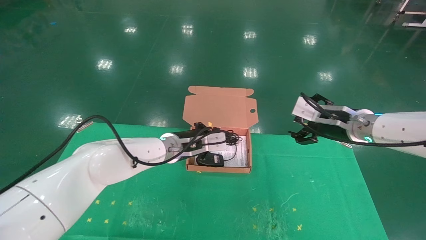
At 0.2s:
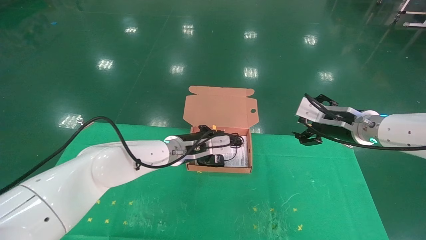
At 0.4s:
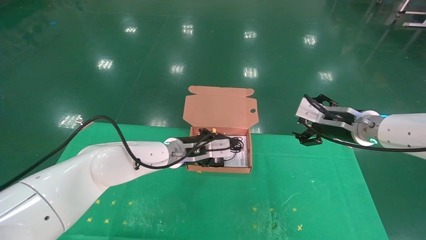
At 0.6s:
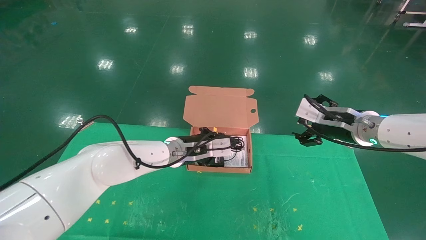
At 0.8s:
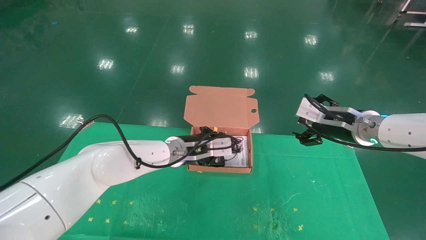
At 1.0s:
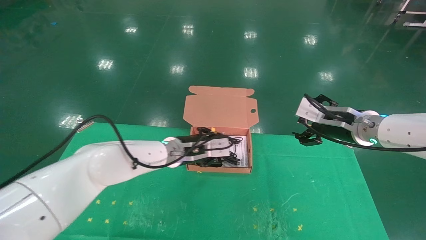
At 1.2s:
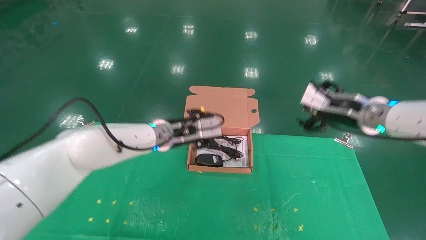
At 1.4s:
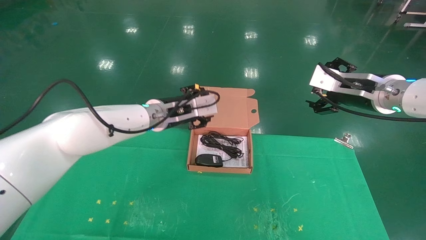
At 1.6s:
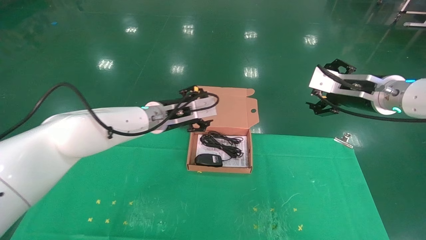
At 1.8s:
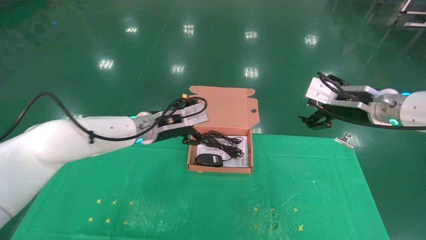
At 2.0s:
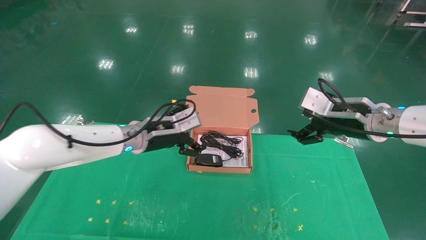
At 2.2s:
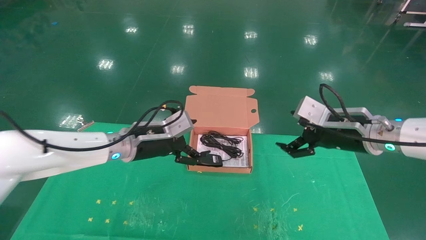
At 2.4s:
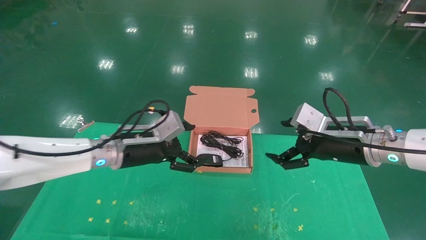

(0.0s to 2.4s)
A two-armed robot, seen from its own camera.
Task of the whole recording: grasp data cable left put into box grasp mouse right put into box.
0.0s - 1.2s: Both grippers travel together upward, about 5 cm. The left gripper opens.
1.2s - 2.4s: The right gripper moves downward and backward, some 10 cm. The left gripper goes roughly 10 cm backward and to the left, and opens.

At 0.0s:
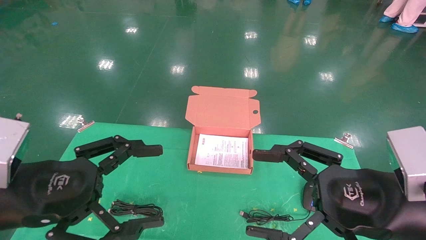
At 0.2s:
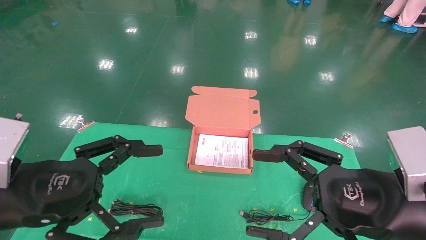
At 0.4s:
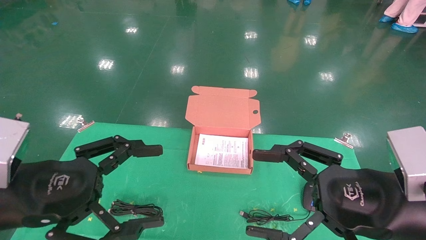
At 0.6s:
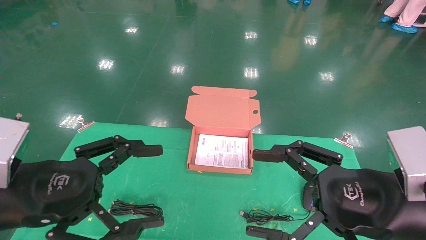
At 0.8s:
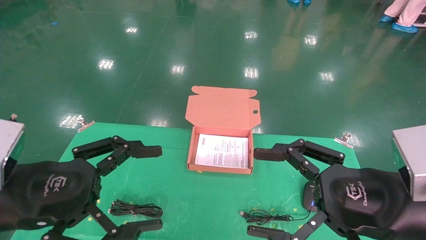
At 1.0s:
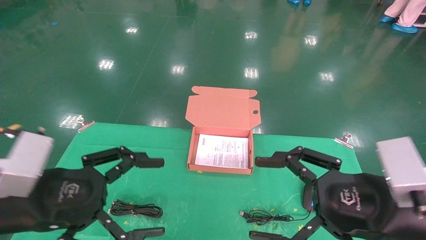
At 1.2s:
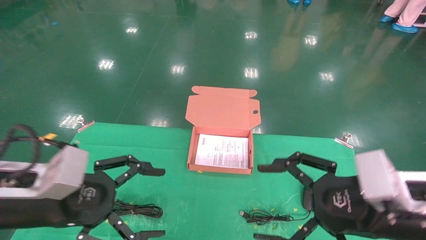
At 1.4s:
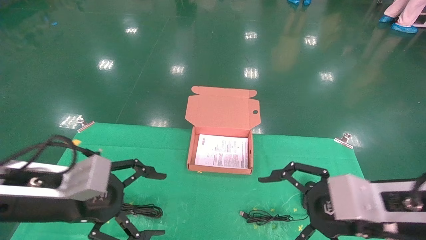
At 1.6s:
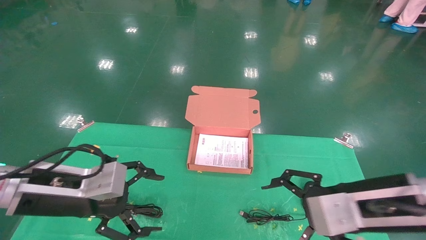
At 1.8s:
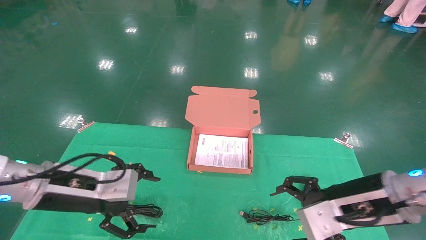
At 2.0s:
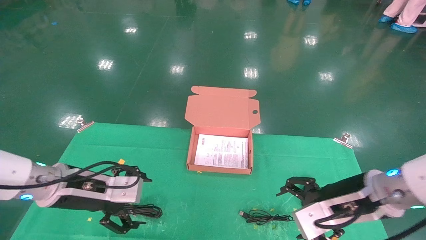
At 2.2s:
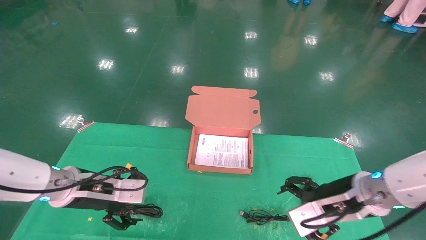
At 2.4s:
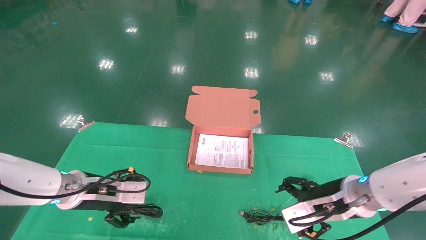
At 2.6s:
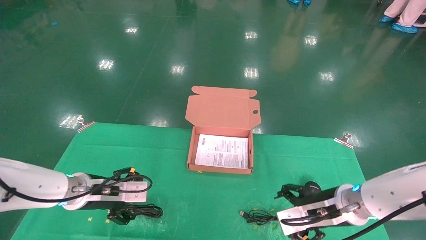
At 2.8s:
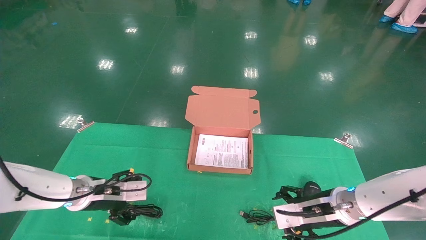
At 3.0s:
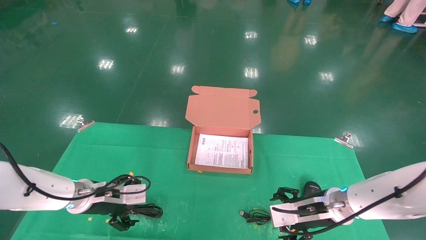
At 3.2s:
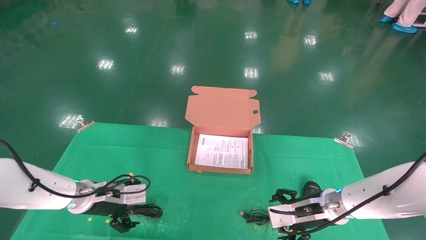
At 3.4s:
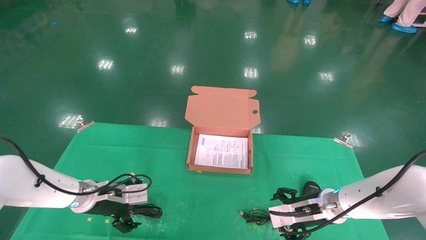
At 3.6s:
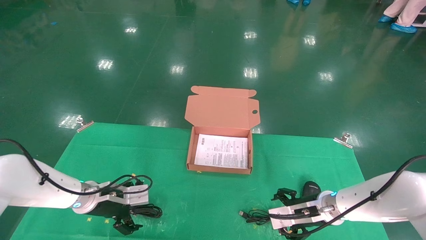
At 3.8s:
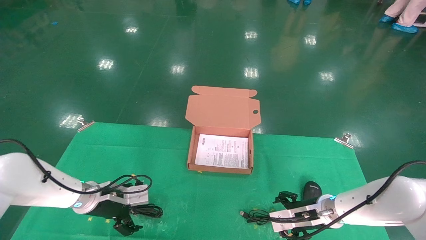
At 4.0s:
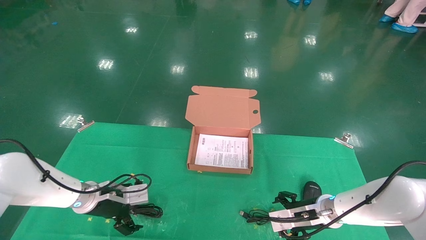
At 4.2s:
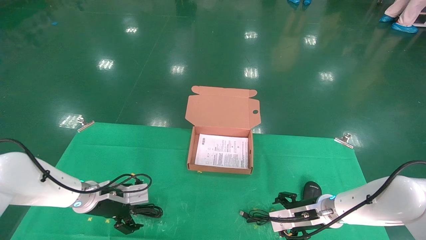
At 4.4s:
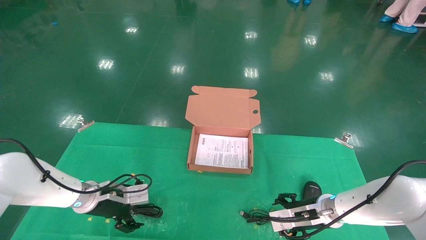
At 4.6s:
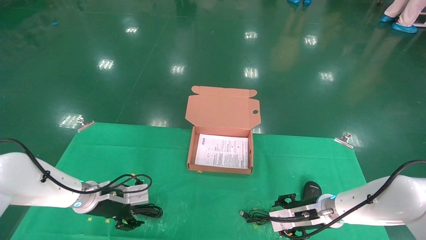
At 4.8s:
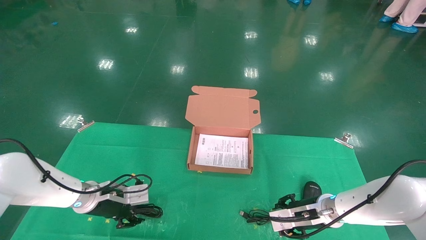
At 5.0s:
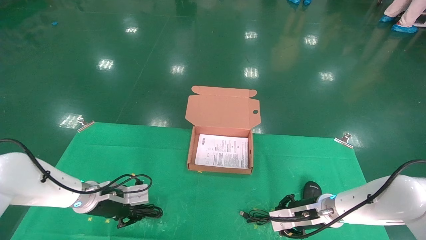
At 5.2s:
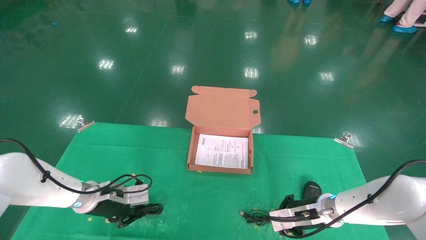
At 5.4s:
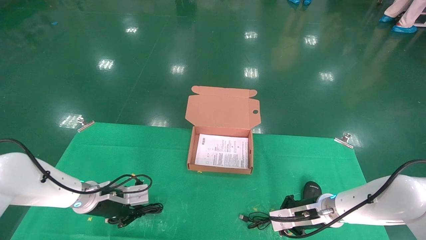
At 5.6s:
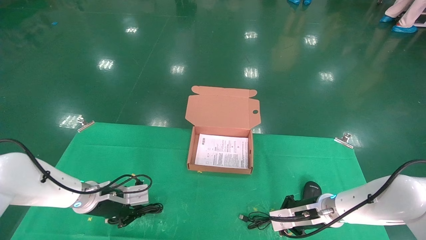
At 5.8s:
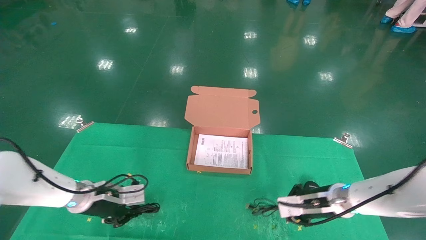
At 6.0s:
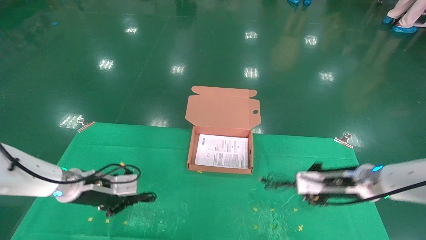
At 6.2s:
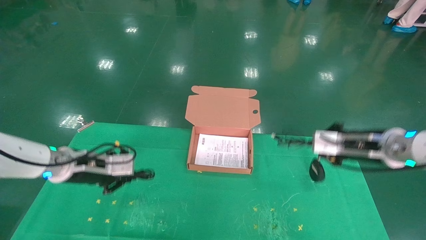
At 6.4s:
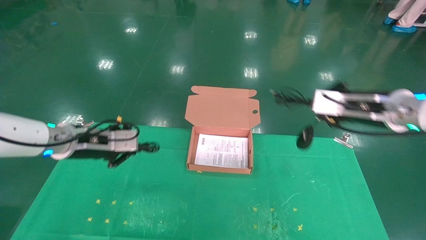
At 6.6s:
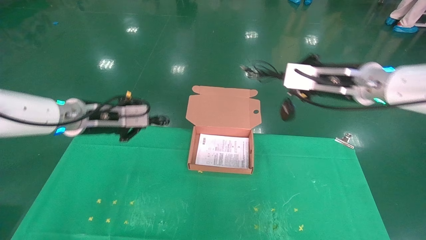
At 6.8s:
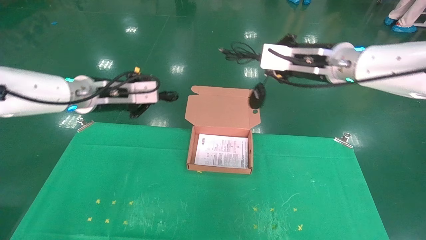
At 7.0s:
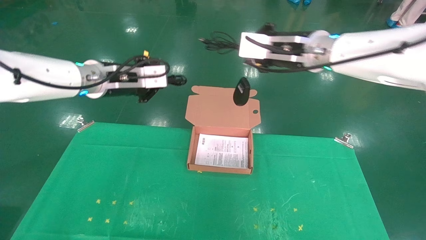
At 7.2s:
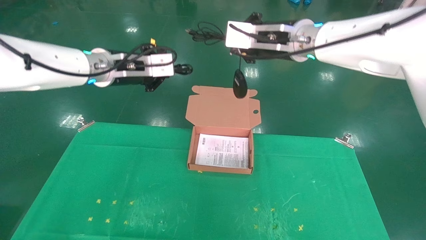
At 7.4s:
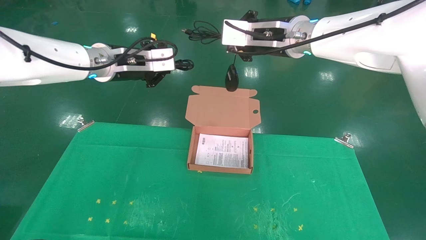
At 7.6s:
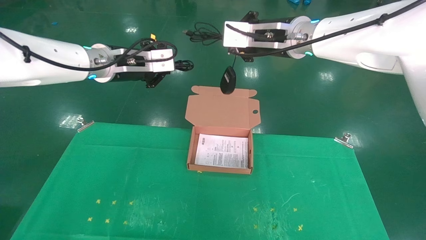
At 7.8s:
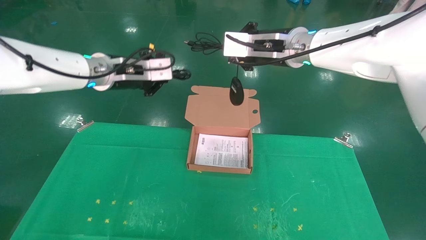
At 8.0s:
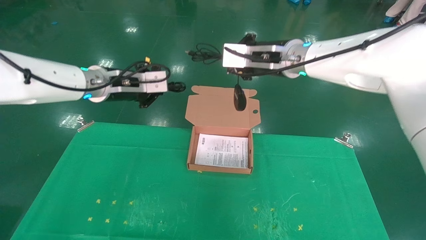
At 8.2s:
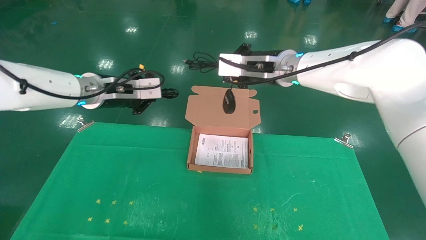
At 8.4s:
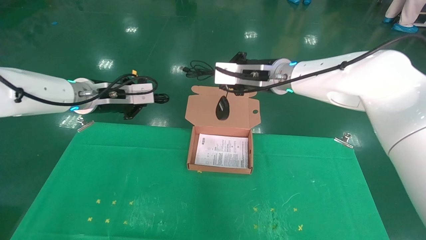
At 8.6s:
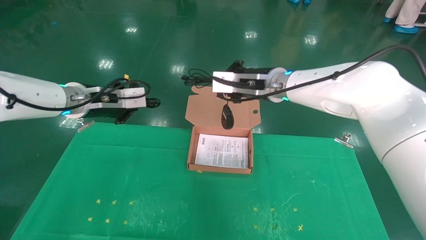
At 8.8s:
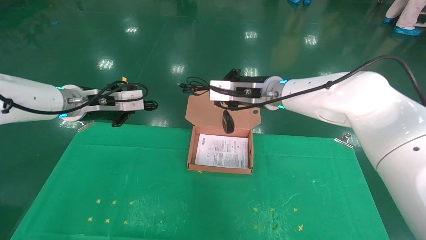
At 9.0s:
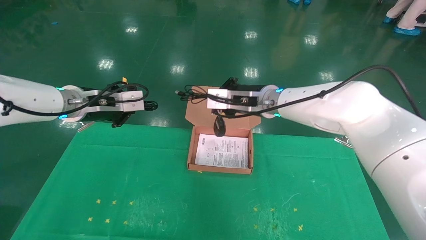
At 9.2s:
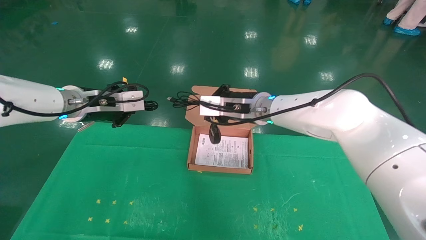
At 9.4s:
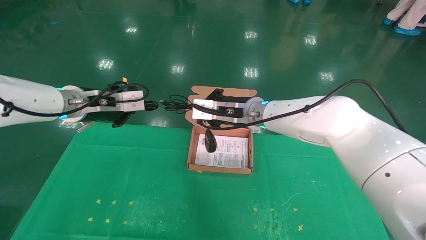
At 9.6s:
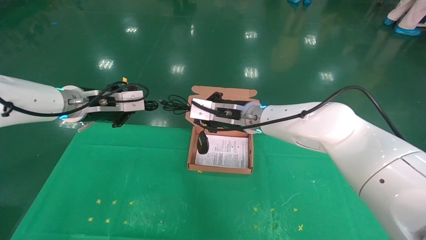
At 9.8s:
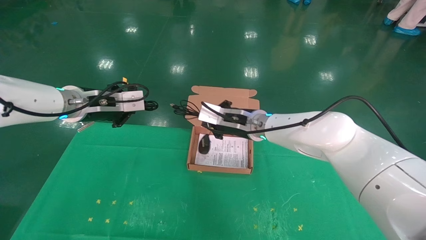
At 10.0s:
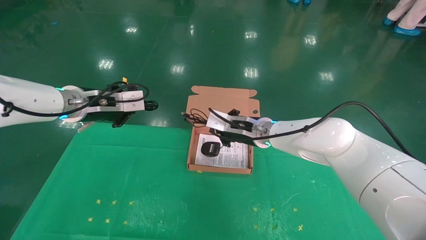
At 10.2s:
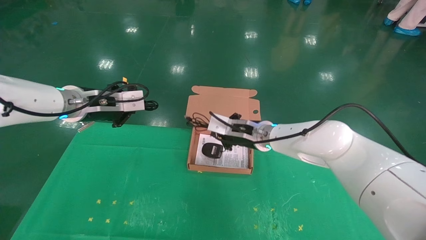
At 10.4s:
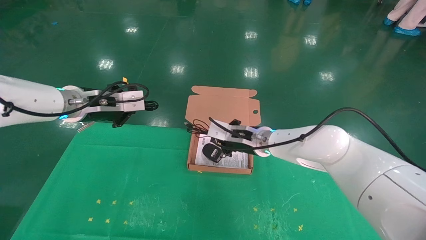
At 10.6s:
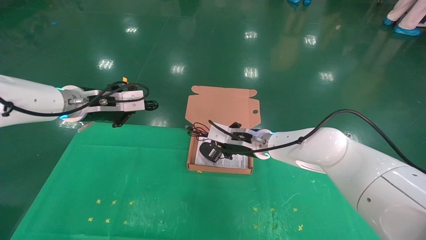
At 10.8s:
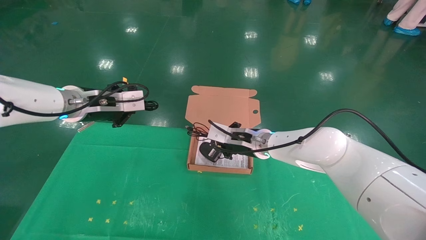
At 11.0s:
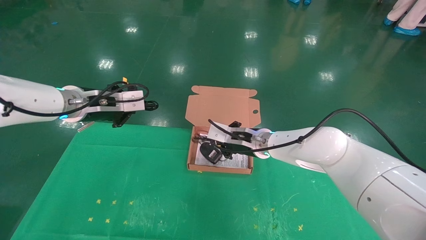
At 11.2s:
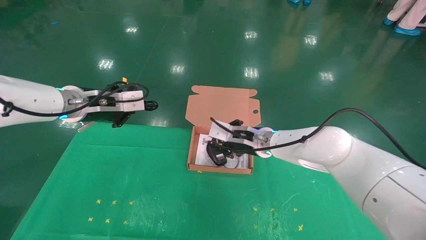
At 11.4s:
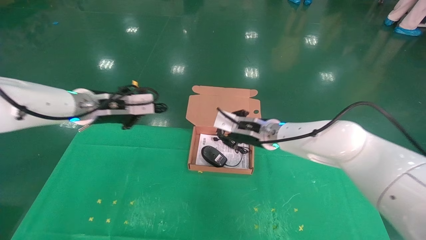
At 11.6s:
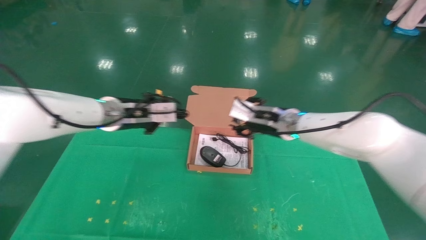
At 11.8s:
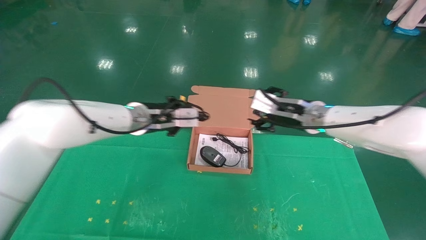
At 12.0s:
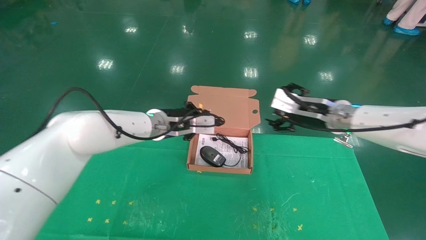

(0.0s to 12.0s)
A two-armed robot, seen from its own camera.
Task of the whole recording: grasp data cable left put into box grasp mouse right put into box.
Step, 1.2s - 5.2s: Grab and pick up both the mouse and power cord from the accessory packaging area at the same time.
0.0s - 1.6s: The left gripper travels forward by roughly 5 cm, while the right gripper changes place by some 5 cm.
1.6s - 3.0s: Both grippers move forward and downward, some 15 cm.
3.0s - 4.4s: The right gripper moves downward, about 5 cm.
4.4s - 6.0s: The right gripper goes approximately 10 cm upward, and closes. The left gripper closes its fingers.
6.0s - 7.6s: The right gripper moves upward and to the left, approximately 30 cm. Meanwhile the left gripper is displaced upward by roughly 25 cm.
7.6s - 9.0s: The right gripper heads downward, covering some 10 cm, while the left gripper goes about 10 cm downward and to the left.
9.0s - 10.4s: The right gripper is displaced downward by roughly 10 cm.
10.4s - 12.0s: The right gripper heads to the right and upward, covering some 15 cm, and opens up. The left gripper goes approximately 15 cm to the right, downward and forward.

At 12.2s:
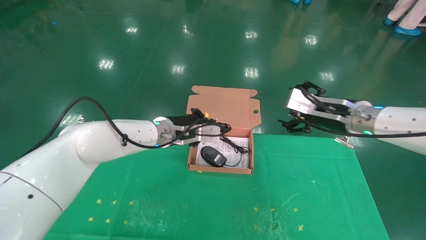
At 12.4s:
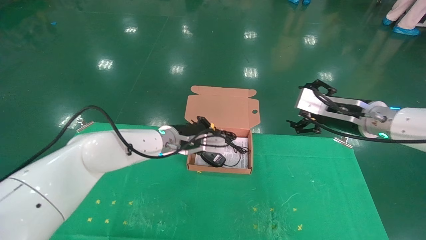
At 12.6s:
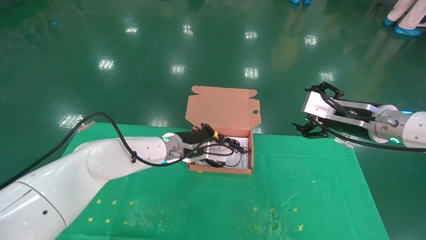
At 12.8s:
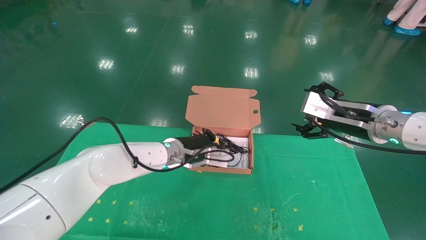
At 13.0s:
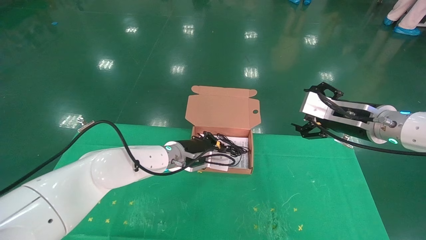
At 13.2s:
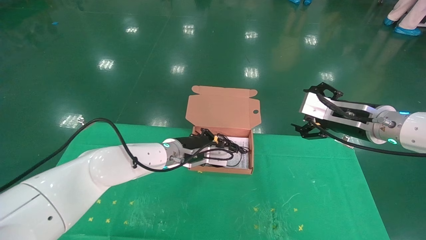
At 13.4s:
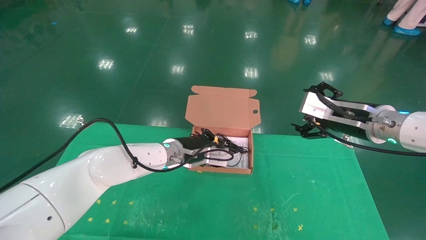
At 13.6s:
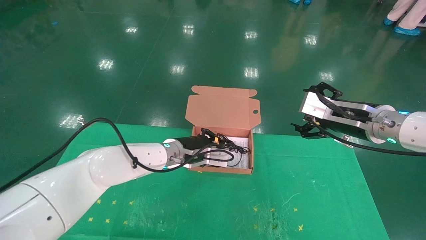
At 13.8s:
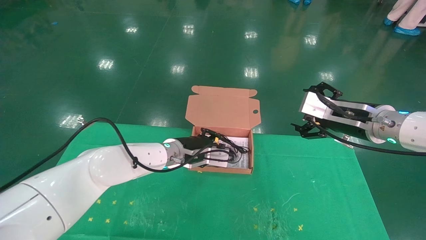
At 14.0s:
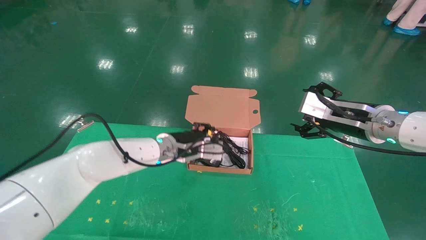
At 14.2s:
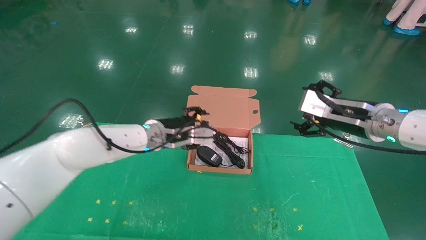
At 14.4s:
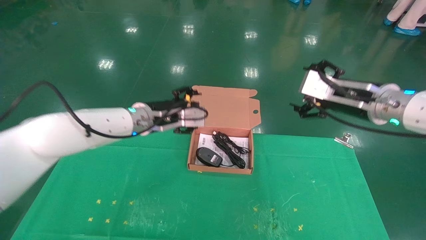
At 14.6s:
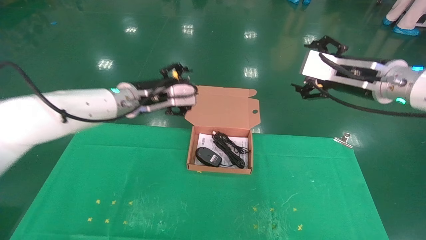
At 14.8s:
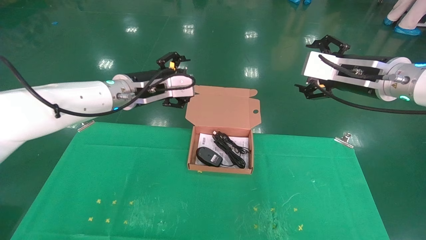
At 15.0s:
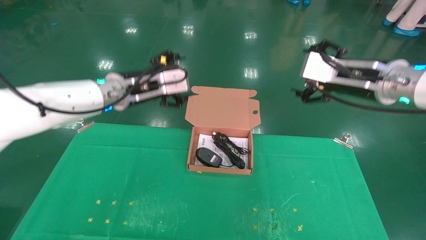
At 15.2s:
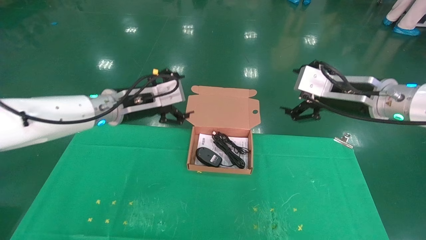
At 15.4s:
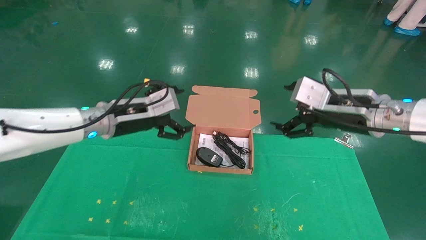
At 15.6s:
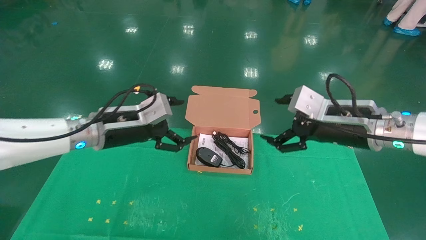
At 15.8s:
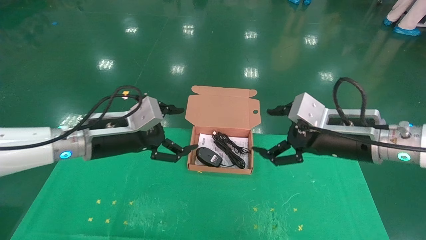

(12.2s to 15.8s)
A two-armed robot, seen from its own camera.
Task of the whole recording: grasp data cable left put into box grasp mouse right put into box.
14.0s - 15.8s: The right gripper travels backward by some 5 cm, and moves some 5 cm upward and comes back; the left gripper moves to the left, backward and upward, roughly 20 cm, and opens.
